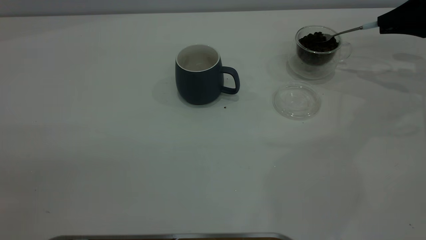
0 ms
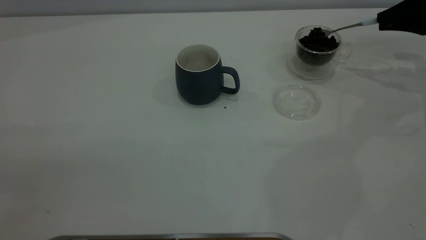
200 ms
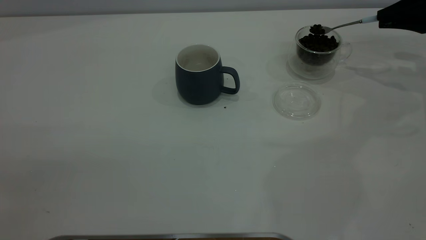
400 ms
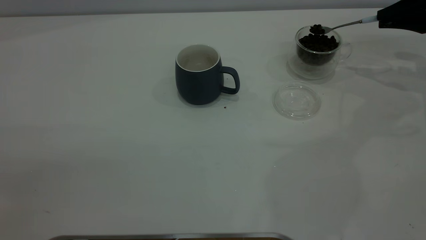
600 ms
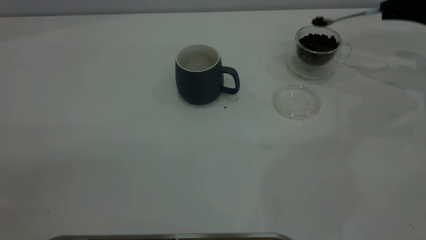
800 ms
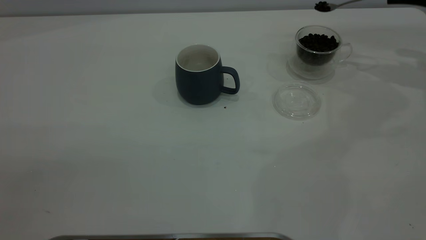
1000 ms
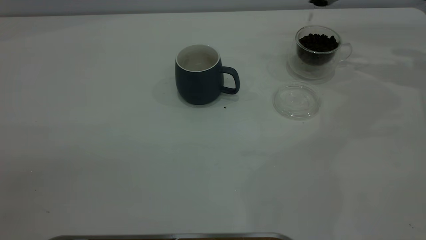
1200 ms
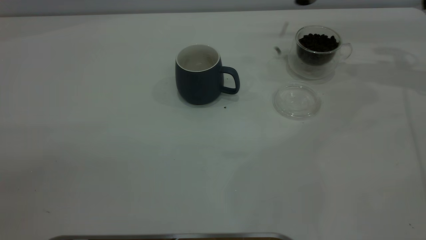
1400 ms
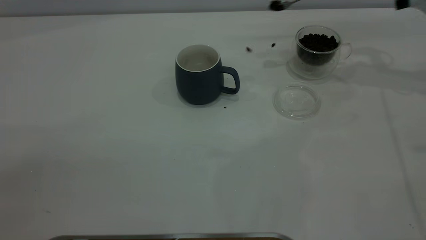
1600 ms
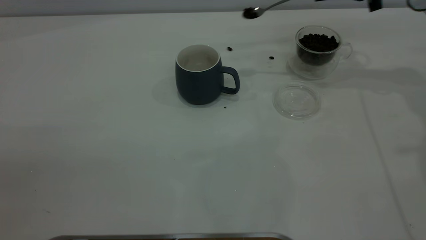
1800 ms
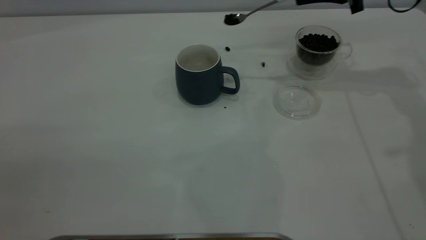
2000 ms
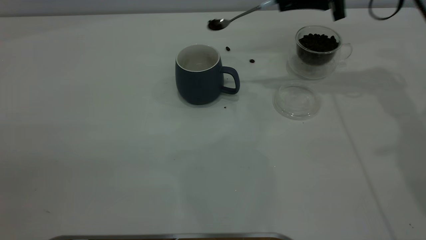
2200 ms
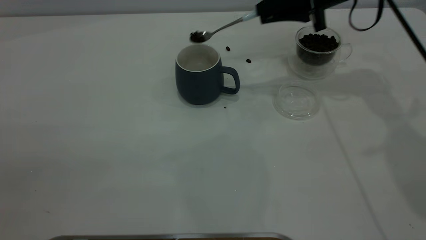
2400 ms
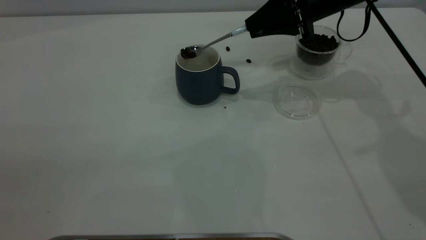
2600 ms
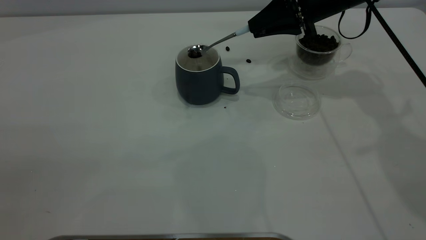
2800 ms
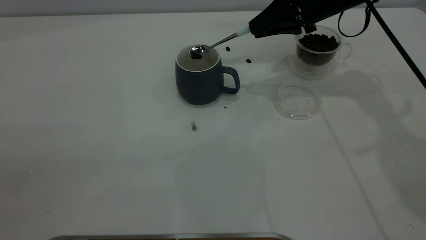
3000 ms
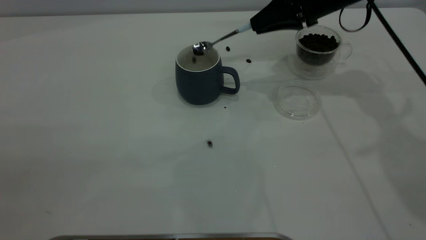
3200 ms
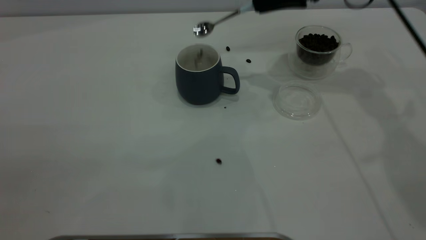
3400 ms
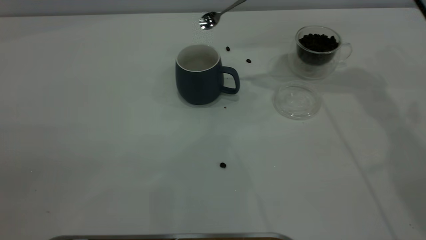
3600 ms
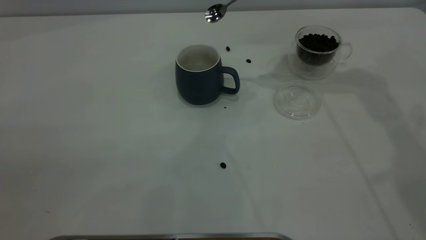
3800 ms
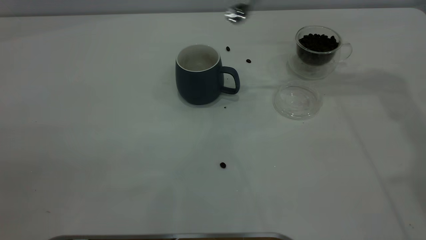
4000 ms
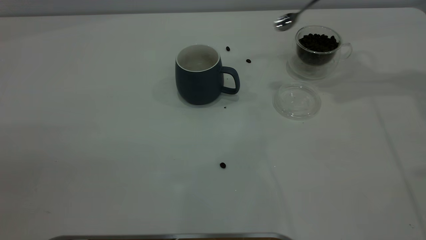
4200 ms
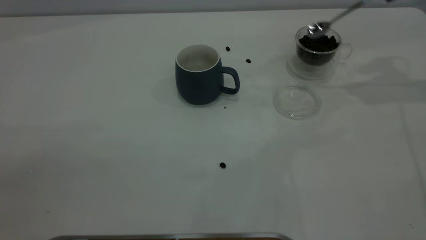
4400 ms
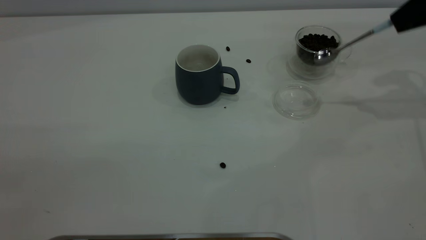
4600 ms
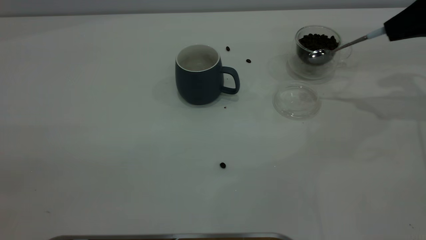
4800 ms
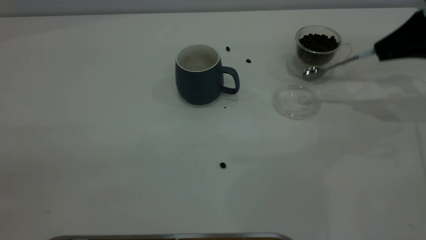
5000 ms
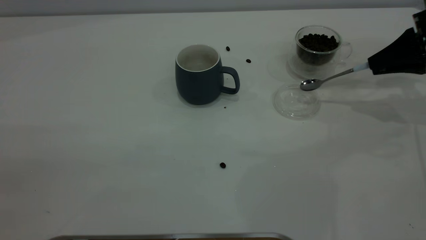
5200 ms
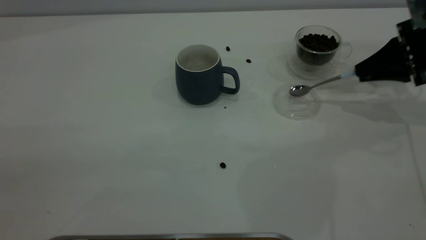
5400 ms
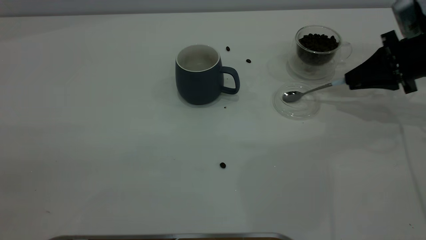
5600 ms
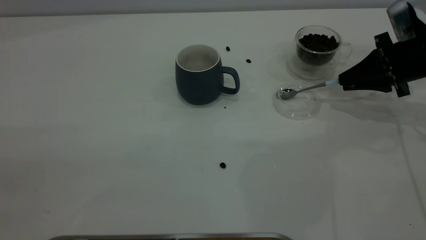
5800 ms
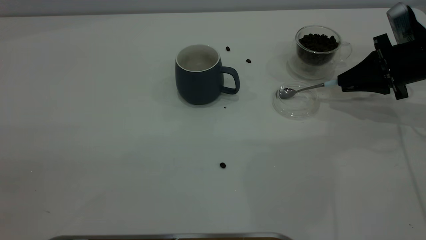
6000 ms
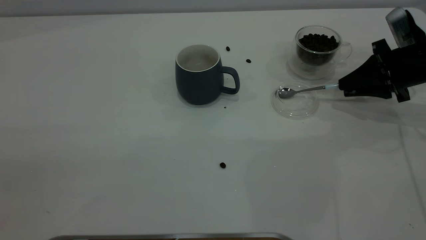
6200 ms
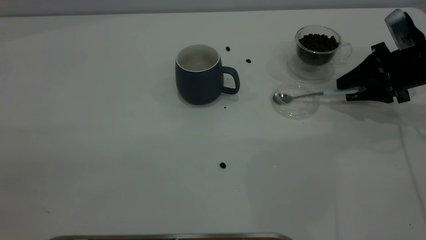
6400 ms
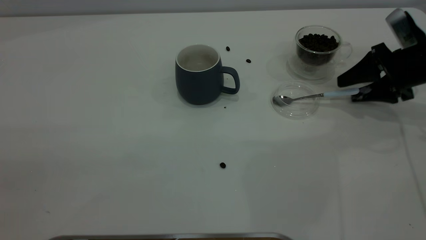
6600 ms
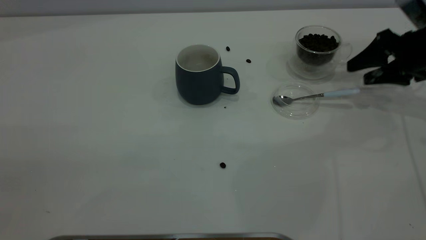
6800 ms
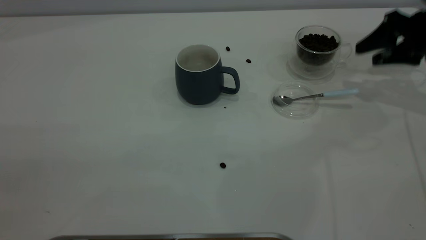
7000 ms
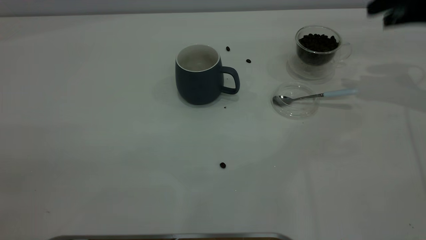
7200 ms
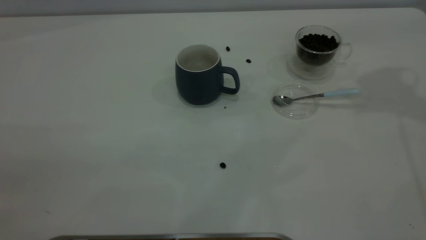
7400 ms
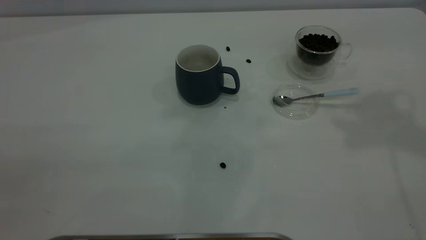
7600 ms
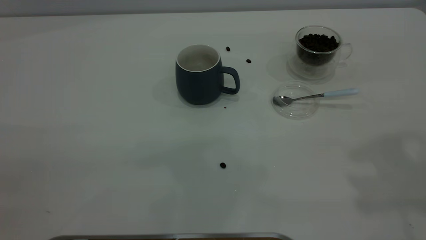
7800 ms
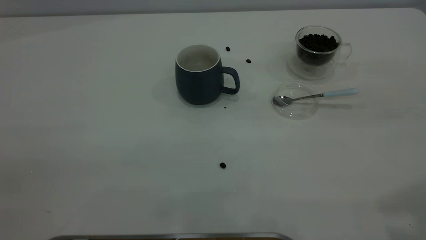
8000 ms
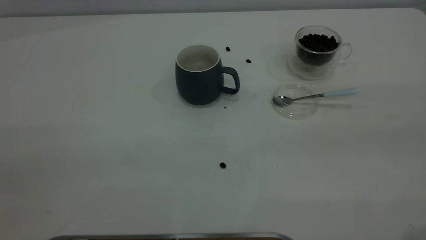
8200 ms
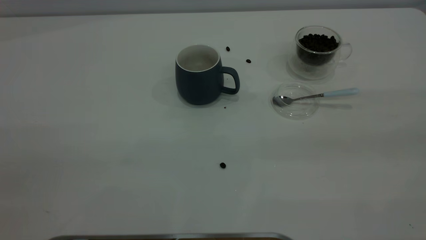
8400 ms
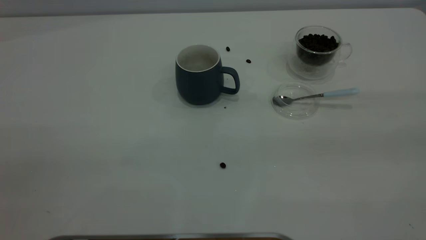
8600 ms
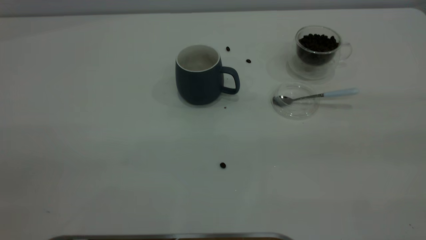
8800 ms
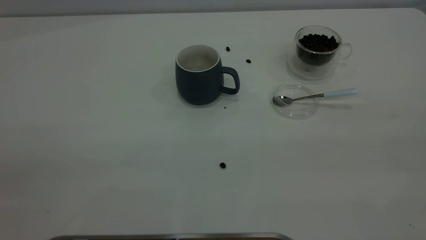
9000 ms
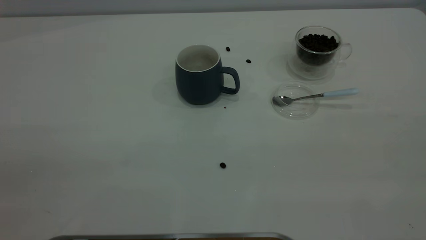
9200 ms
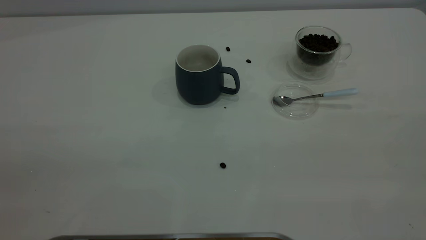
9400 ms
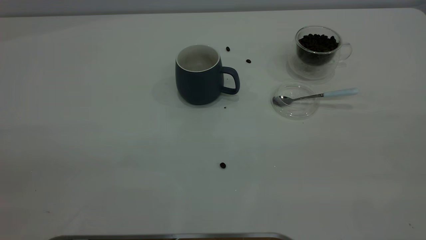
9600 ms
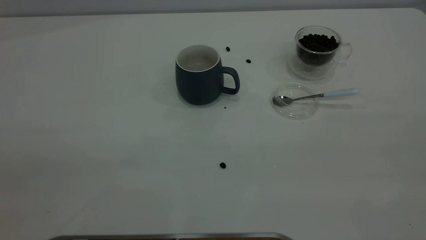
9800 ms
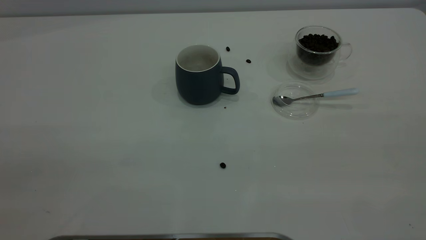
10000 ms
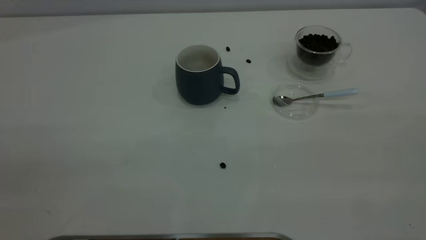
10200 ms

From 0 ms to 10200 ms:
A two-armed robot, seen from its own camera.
Task of the whole recording: the left gripper place the grey cup in the center of the table, the right gripper take the blue spoon from the cup lid and scoop out the coffee beans from the coffee cup and put them into the grey cup, the right gripper put the spoon back into the cup lid.
Step, from 0 ms to 3400 ms: Scoop a spoonful of beans into the cup.
Step, from 3600 ms to 6800 ms: Place the spoon back in its original place.
From 0 ms to 1400 ms: The right gripper heads upward, covering about 5 cm.
From 1400 ms to 3000 ms: The right gripper is displaced to the left by approximately 15 cm.
From 3000 ms to 4400 ms: The right gripper shifts approximately 20 cm to the right and upward.
From 4400 ms to 5800 ms: The right gripper shifts approximately 15 cm downward.
From 5800 ms to 7200 ms: The right gripper travels upward by roughly 15 cm, and opens.
From 7200 ms to 8800 ms: The right gripper travels backward by roughly 35 cm.

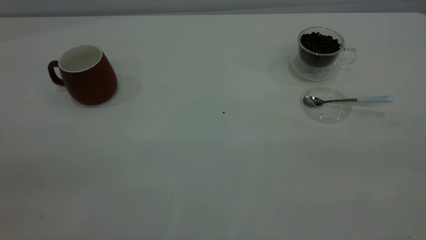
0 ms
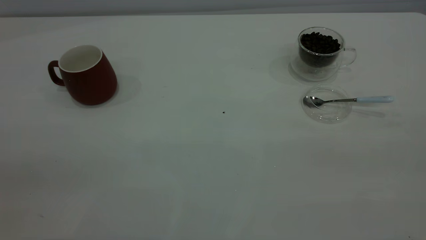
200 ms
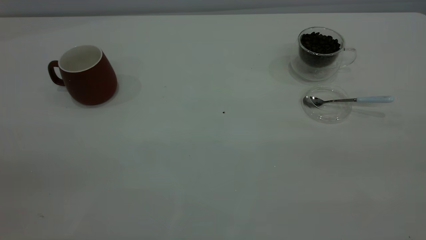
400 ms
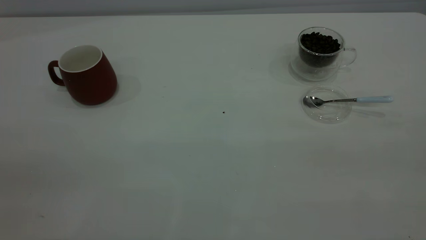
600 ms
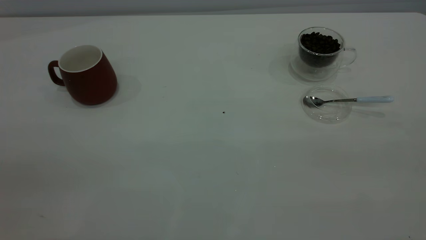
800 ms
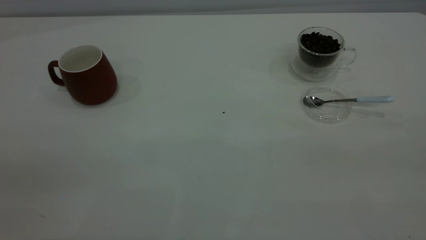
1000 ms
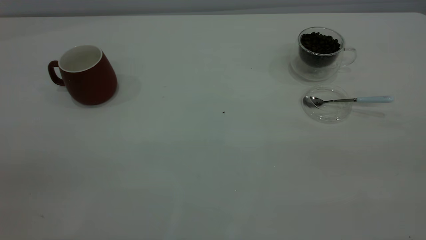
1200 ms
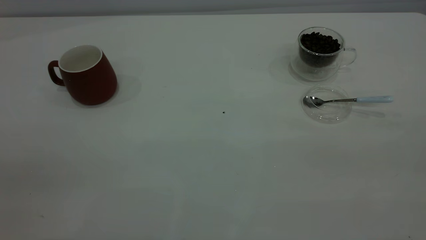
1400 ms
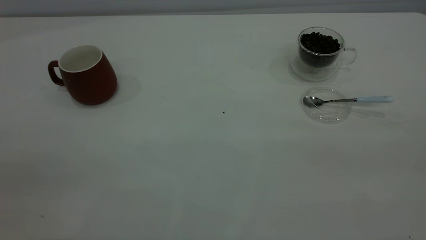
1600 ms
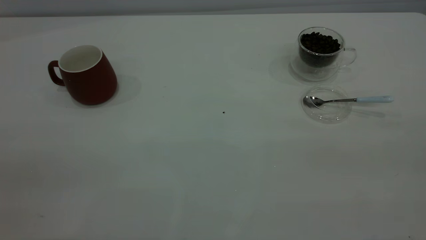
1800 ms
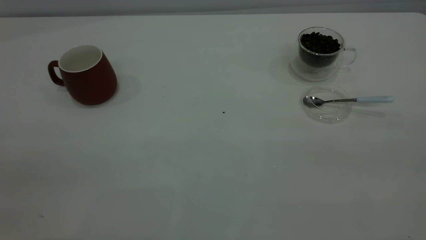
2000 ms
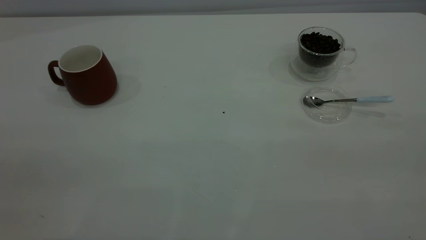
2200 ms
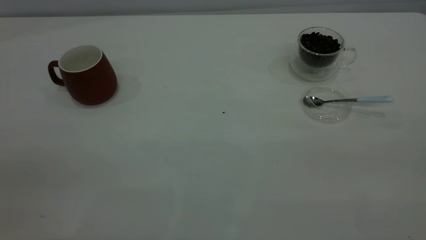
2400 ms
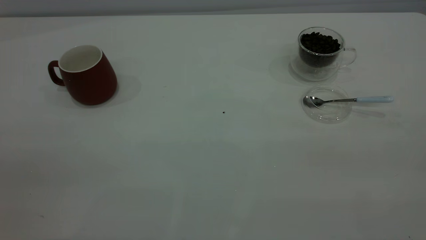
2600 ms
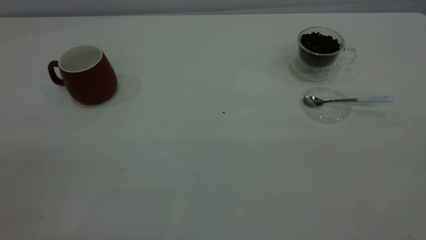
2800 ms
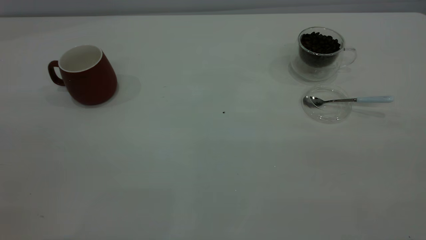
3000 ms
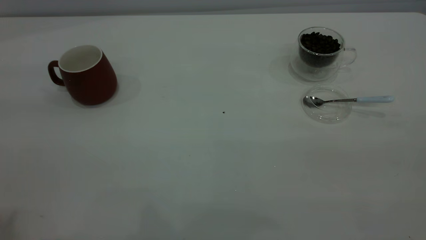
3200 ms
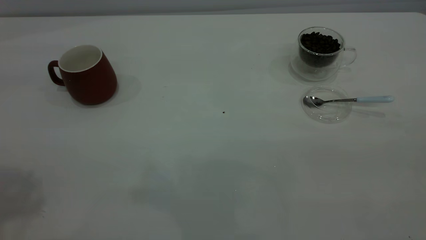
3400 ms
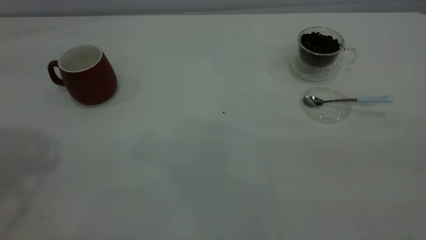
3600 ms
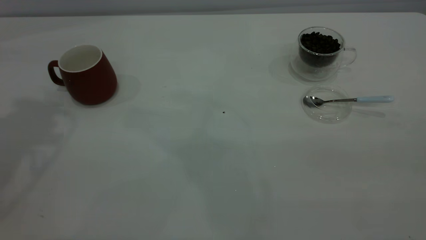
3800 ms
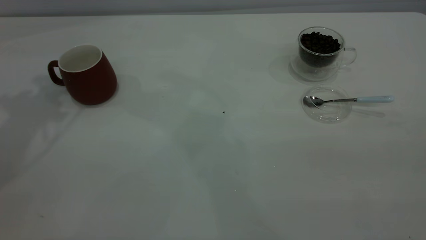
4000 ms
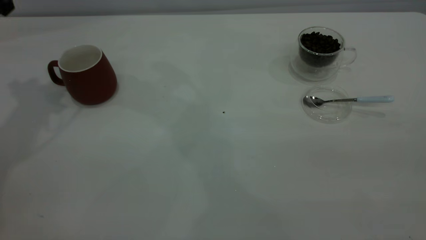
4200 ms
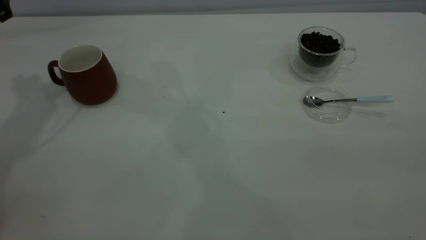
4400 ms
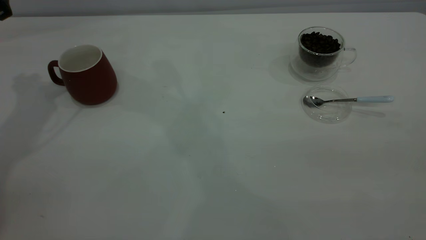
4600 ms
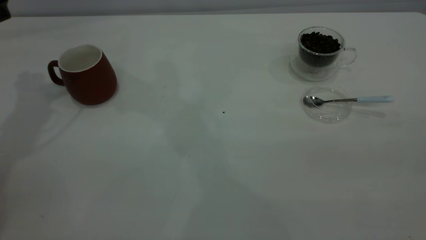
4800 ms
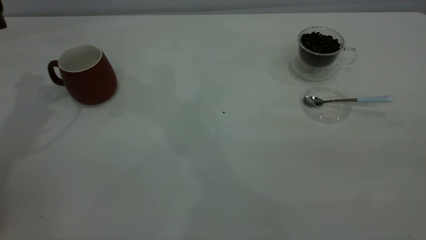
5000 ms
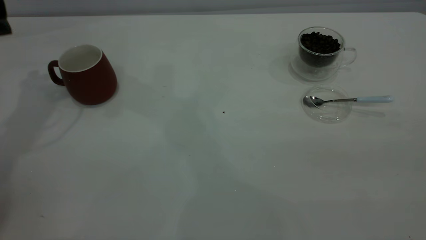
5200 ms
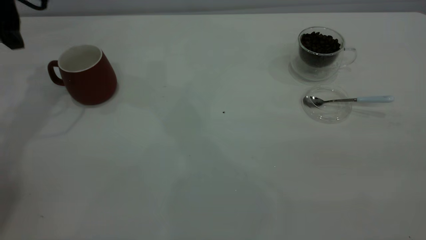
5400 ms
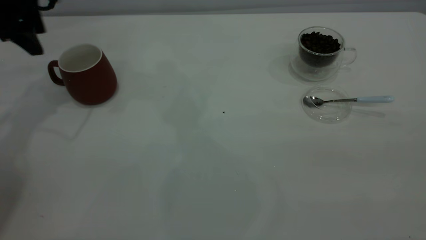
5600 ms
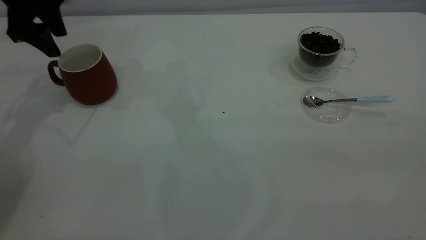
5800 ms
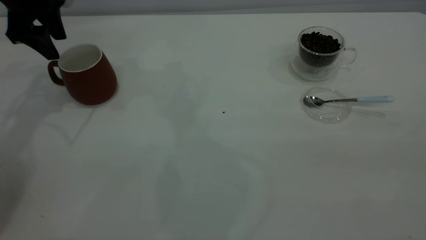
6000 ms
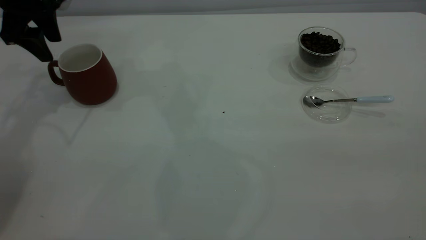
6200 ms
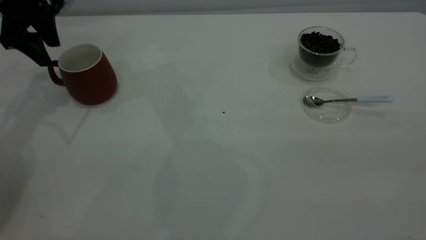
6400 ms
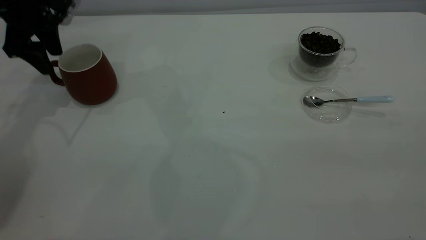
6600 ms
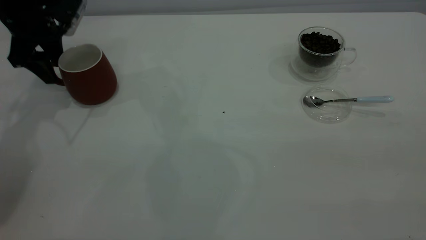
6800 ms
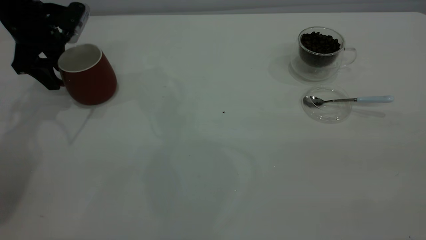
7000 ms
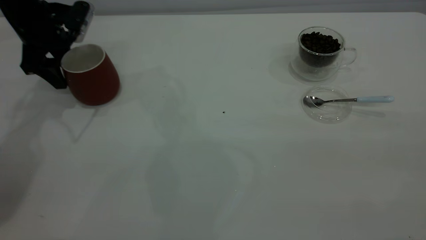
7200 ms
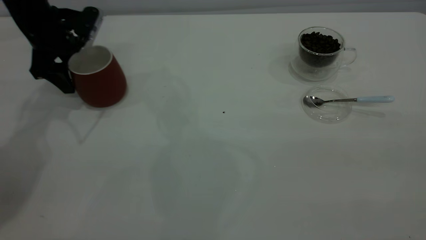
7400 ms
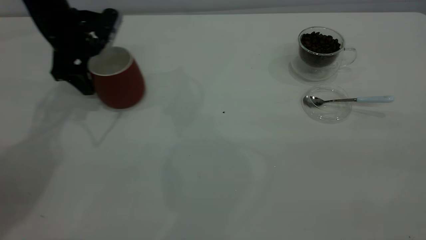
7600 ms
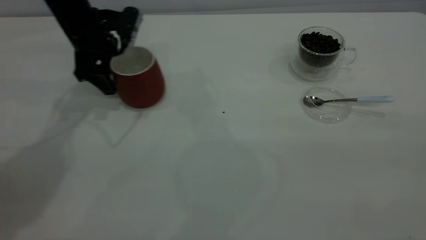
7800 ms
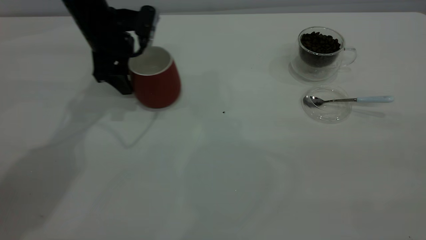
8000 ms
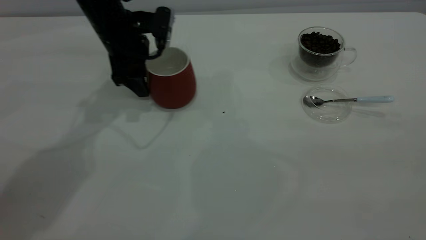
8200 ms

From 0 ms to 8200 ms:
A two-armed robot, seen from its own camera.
Task of the whole recording: the left gripper place the red cup in the center of the table, the right gripper take the blue spoon from the cup lid and scoop out the coffee beans from the coffee cup and put them into the red cup, the right gripper put the spoon back into the cup lid.
From 0 ms to 1600 ms: Neither gripper changes place.
From 5000 ms to 6600 ms: The left gripper heads downward and forward, covering about 10 cm.
From 6600 ms to 8200 ms: The left gripper shifts roughly 15 cm to the right.
